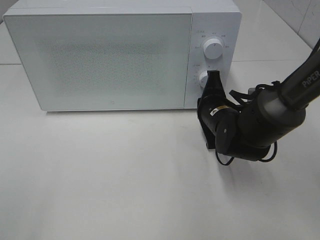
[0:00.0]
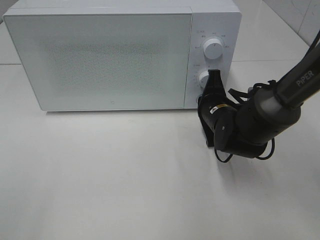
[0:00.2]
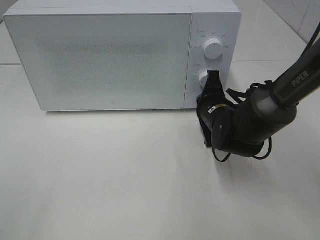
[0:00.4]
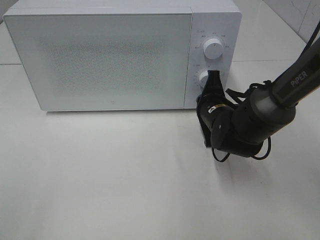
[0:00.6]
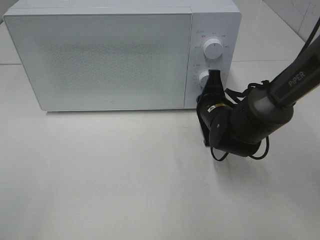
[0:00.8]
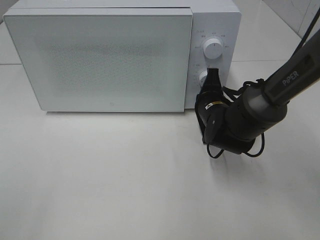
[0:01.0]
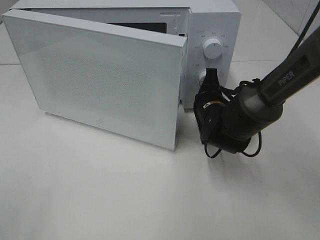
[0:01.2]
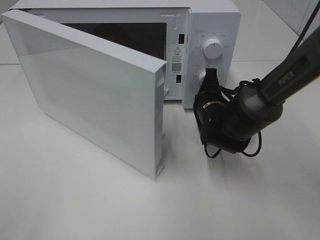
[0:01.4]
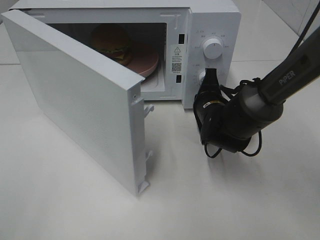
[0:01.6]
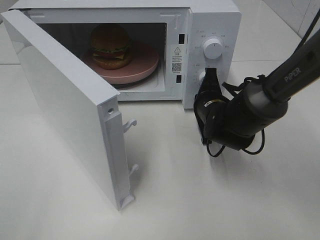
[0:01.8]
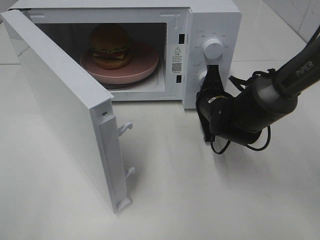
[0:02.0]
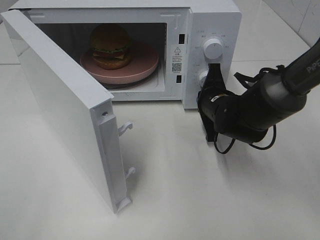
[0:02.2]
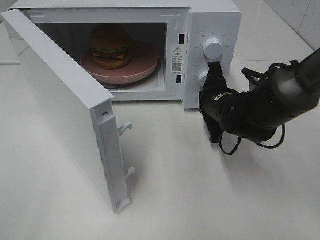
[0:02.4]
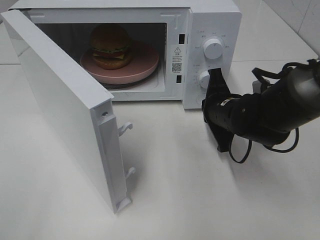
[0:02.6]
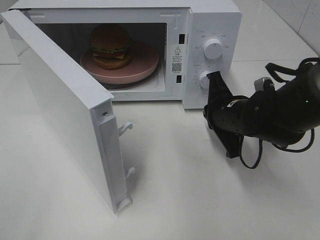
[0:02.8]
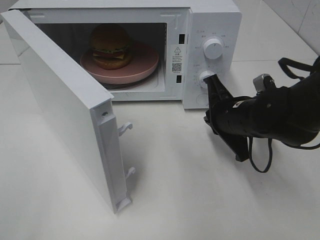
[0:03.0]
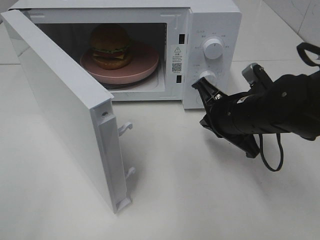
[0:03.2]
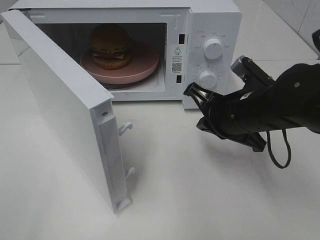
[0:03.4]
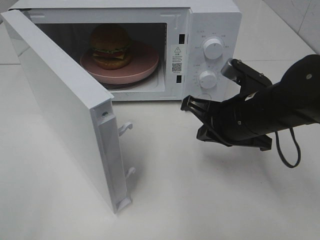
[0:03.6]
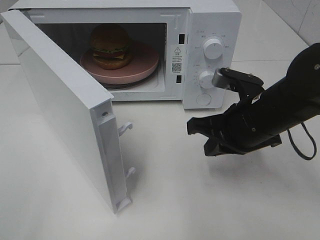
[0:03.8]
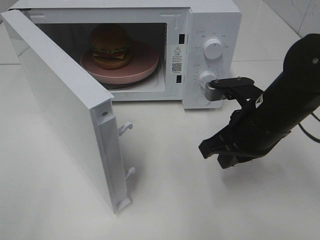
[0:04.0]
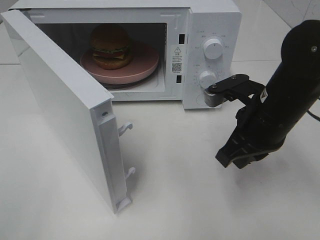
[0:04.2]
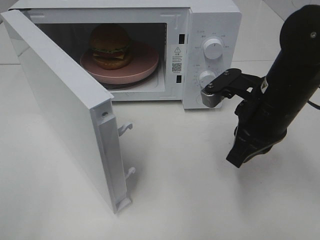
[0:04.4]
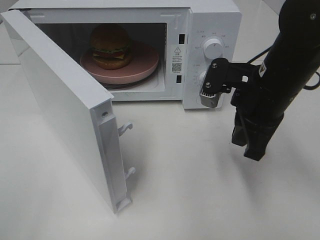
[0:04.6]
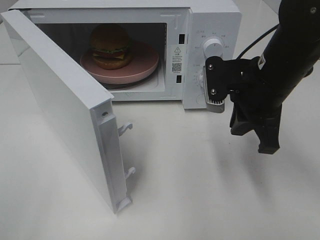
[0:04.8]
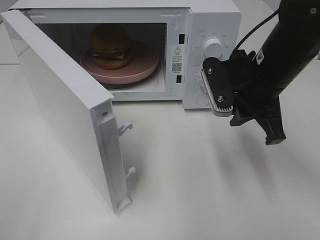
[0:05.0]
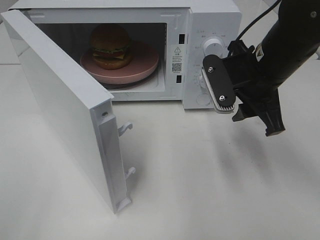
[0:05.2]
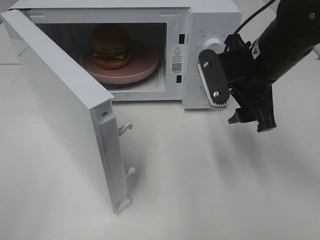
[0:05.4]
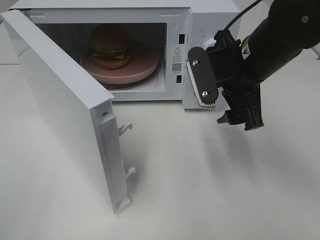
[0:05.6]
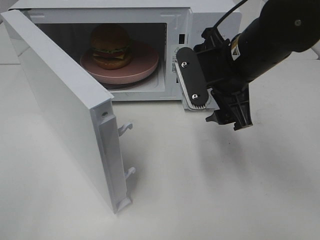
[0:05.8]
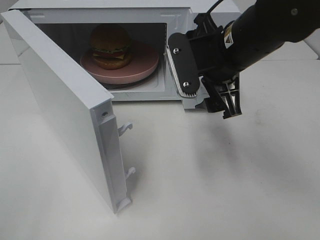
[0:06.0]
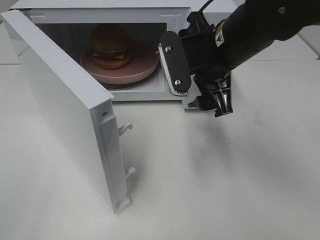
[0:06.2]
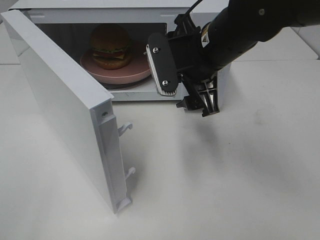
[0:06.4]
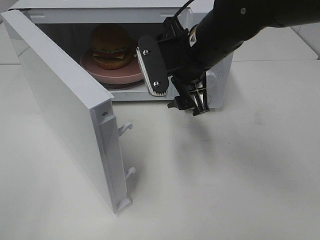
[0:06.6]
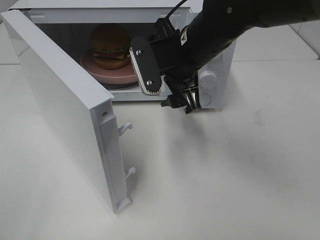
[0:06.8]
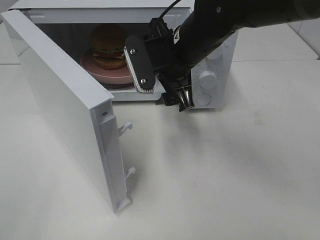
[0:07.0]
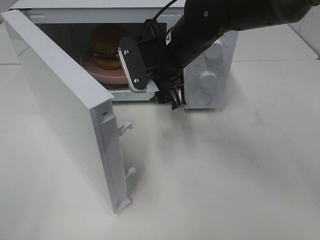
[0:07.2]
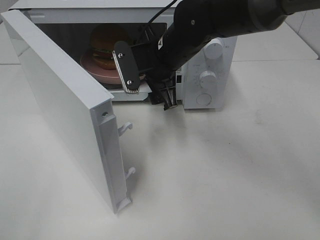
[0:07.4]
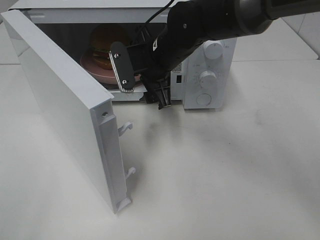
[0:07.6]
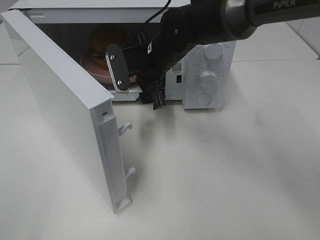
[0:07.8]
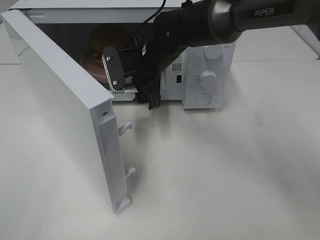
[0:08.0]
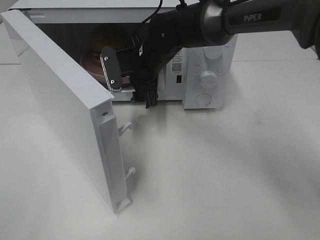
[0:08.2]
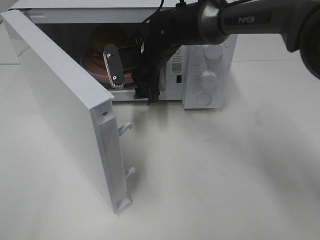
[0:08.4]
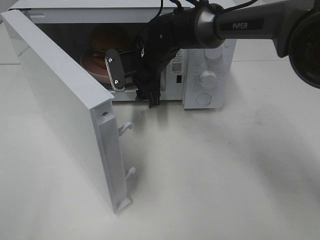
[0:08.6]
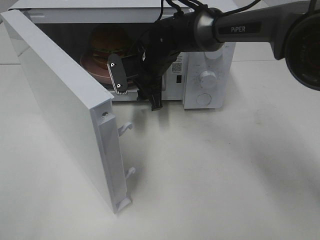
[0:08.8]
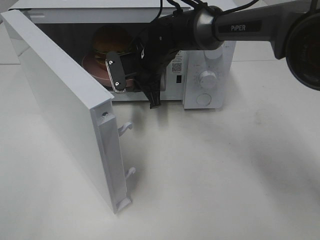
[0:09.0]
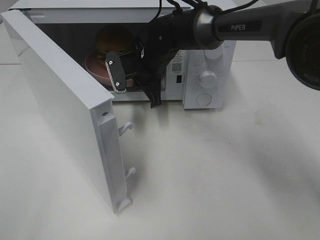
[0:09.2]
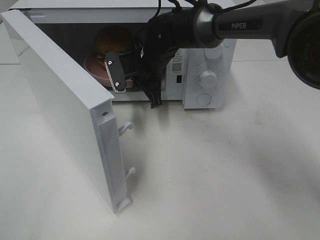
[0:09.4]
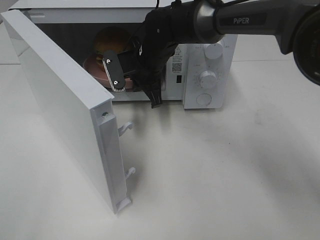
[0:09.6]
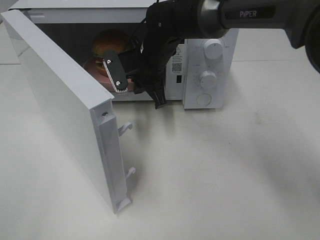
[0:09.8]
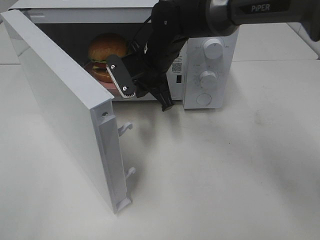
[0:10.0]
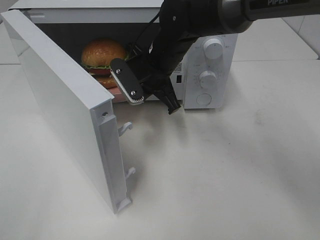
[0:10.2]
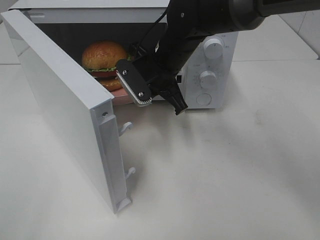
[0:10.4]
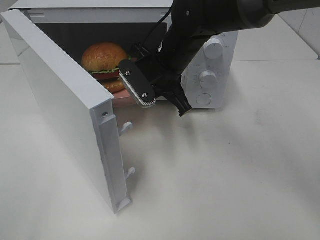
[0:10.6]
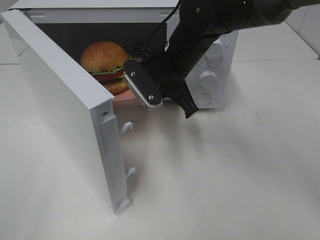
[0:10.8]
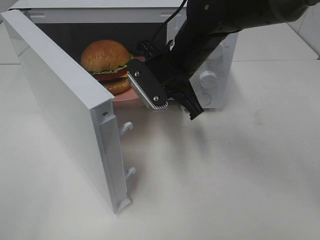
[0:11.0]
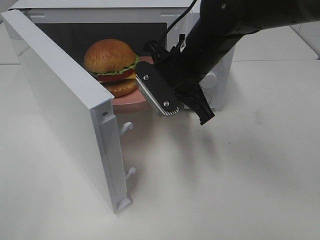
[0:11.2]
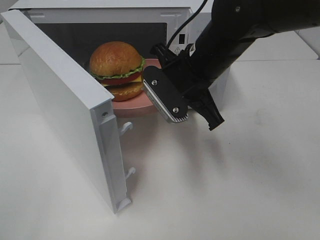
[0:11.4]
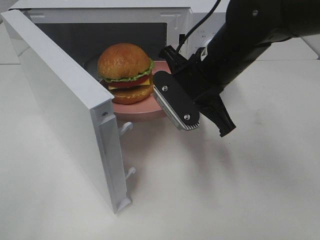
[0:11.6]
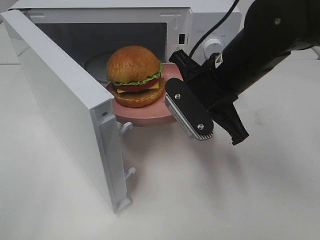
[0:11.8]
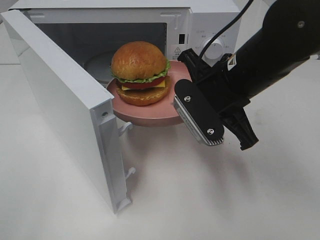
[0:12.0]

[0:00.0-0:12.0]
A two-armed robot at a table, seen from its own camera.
Task of the whole recording: Heat the burger.
Step, 0:00.0 to 0:02.4: Right hand: press the switch.
Step, 0:02.6 to 0:09.0: Right hand: grab the plate with the hamburger.
0:01.6 to 0:03.0: The right gripper goes about 5 cm backward.
0:03.0 to 0:04.4: The right gripper heads upward, covering approximately 5 cm.
0:04.4 to 0:06.0: The right gripper is displaced upward and to the left by roughly 10 cm, and opens.
0:06.0 to 0:07.6: The right gripper moves forward, to the left and downward, about 15 cm.
0:07.6 to 0:09.0: The right gripper goes roughly 5 cm forward, and closes.
0:09.0 to 0:10.4: The right gripper heads backward, covering about 5 cm.
0:10.4 to 0:12.0: The right gripper heads backward and to the right, covering some 15 cm.

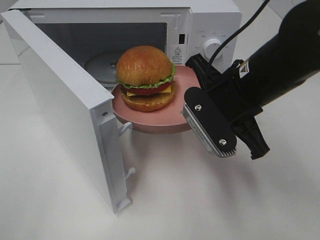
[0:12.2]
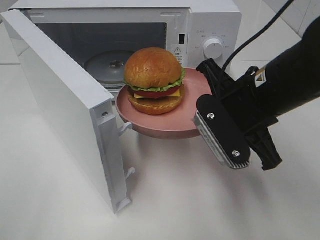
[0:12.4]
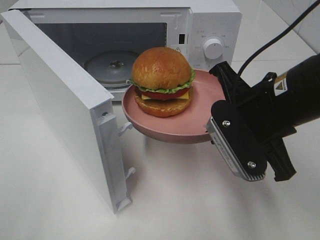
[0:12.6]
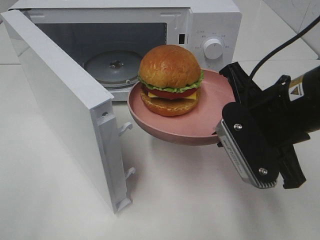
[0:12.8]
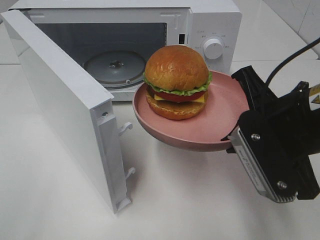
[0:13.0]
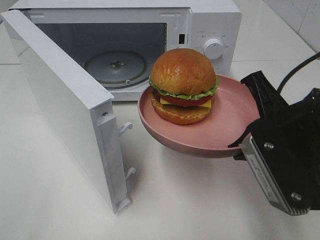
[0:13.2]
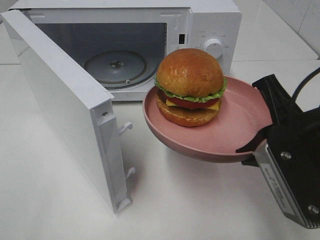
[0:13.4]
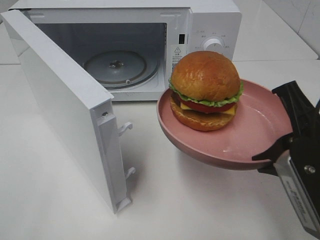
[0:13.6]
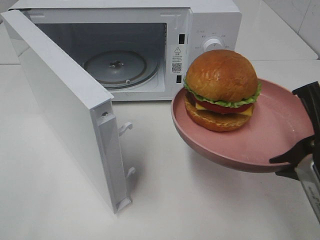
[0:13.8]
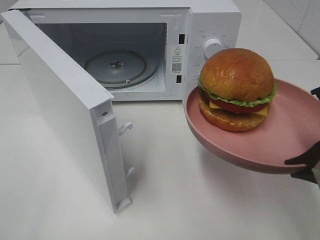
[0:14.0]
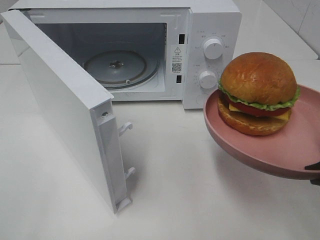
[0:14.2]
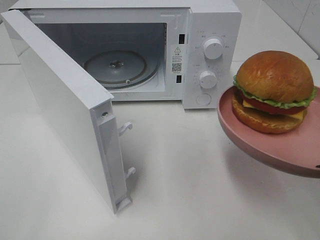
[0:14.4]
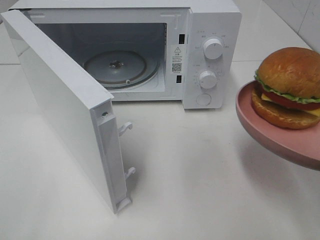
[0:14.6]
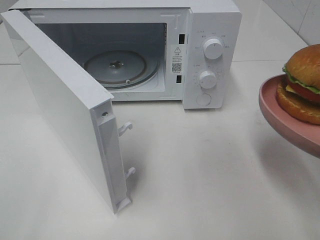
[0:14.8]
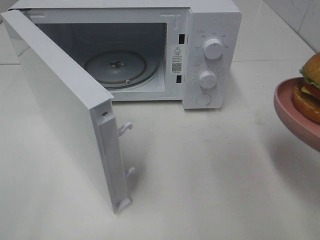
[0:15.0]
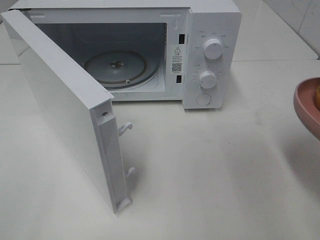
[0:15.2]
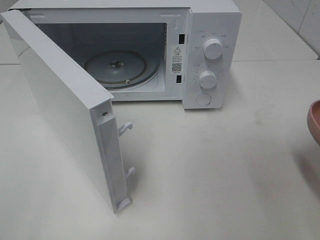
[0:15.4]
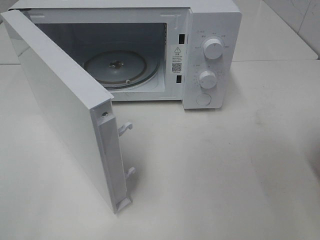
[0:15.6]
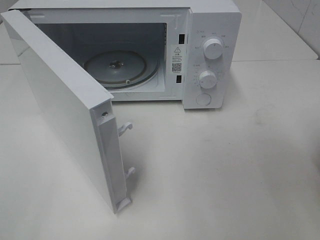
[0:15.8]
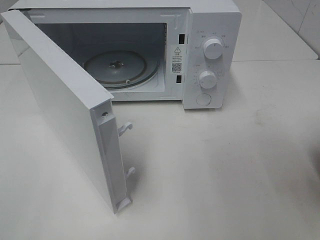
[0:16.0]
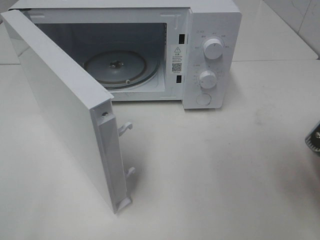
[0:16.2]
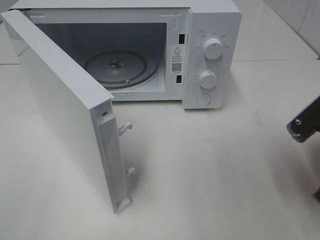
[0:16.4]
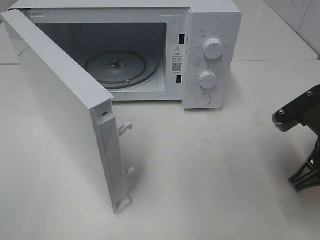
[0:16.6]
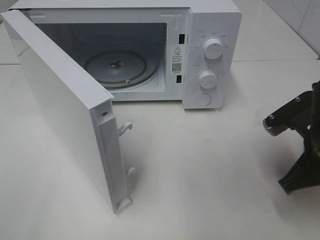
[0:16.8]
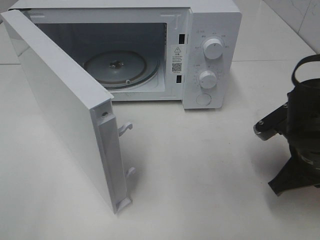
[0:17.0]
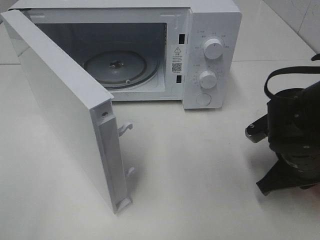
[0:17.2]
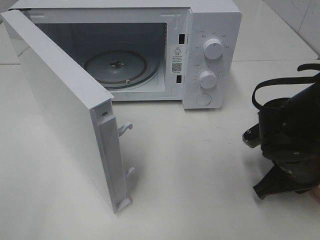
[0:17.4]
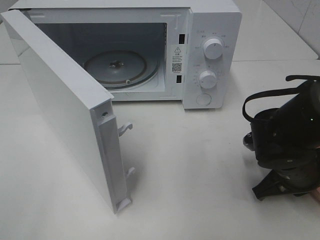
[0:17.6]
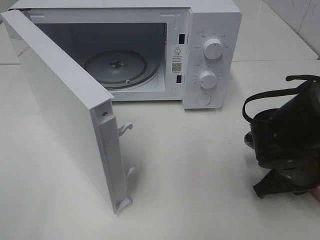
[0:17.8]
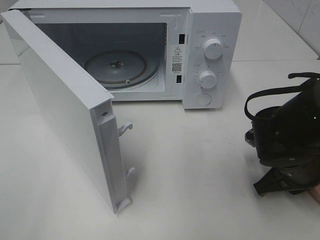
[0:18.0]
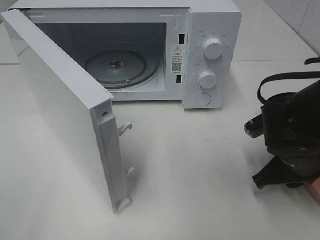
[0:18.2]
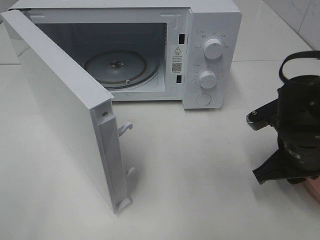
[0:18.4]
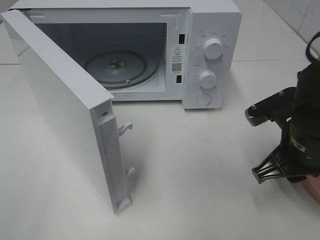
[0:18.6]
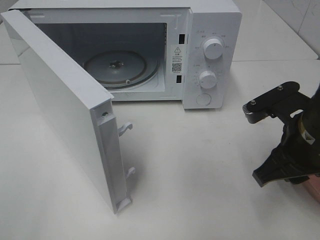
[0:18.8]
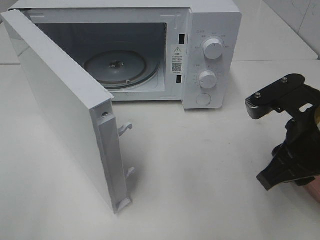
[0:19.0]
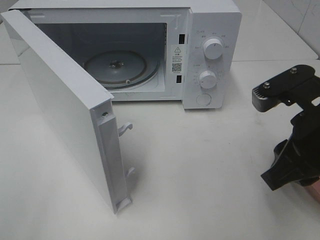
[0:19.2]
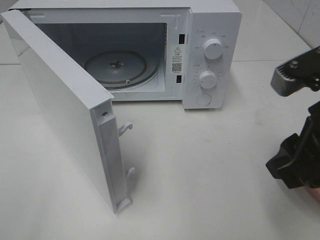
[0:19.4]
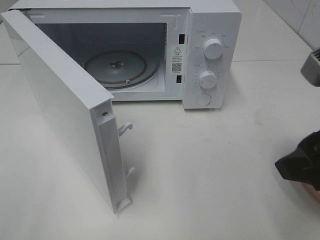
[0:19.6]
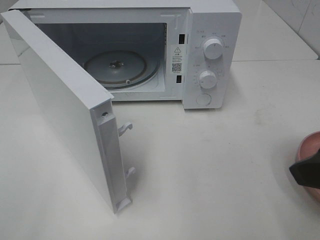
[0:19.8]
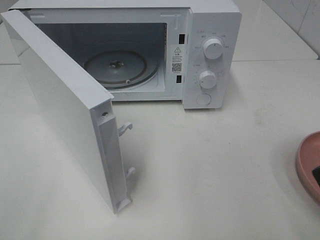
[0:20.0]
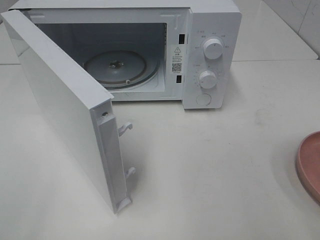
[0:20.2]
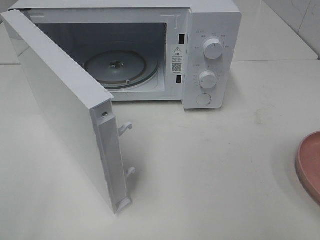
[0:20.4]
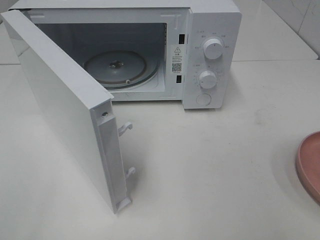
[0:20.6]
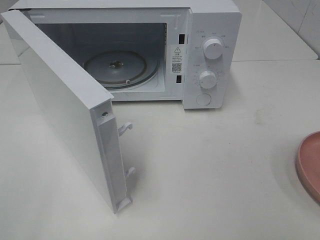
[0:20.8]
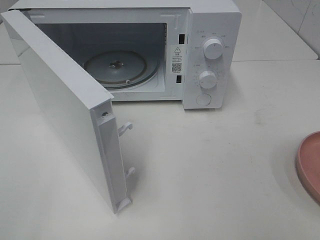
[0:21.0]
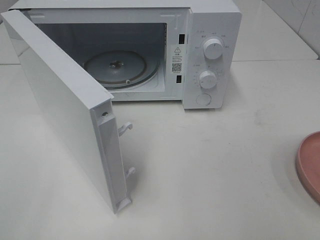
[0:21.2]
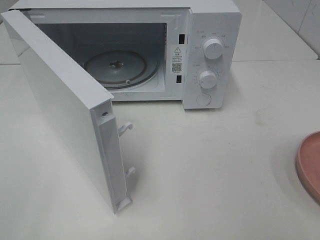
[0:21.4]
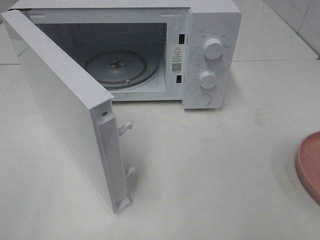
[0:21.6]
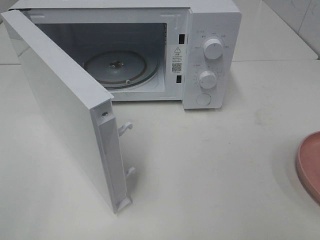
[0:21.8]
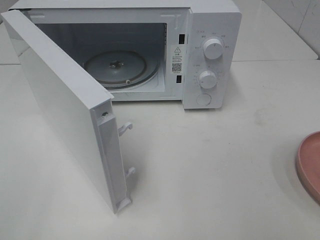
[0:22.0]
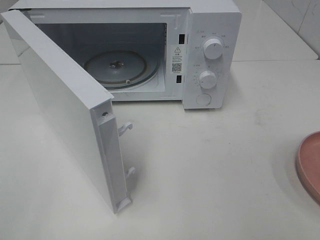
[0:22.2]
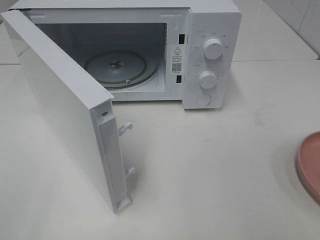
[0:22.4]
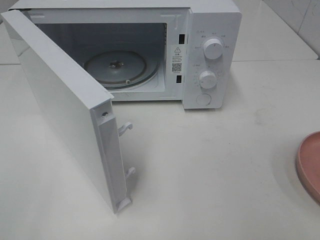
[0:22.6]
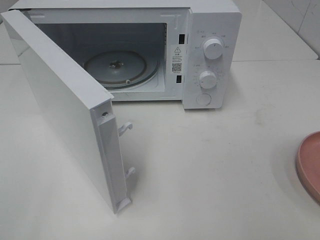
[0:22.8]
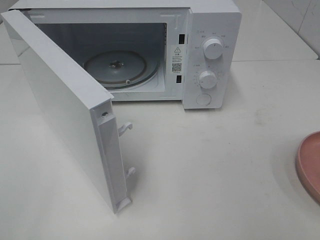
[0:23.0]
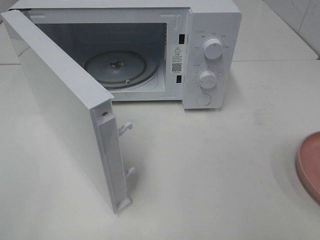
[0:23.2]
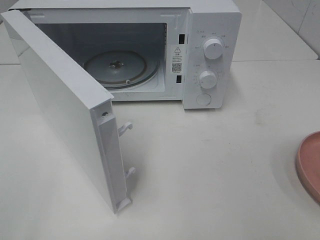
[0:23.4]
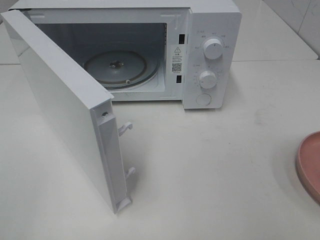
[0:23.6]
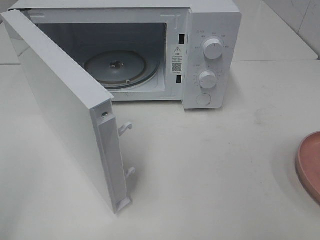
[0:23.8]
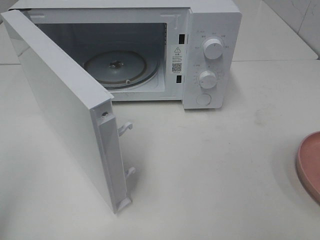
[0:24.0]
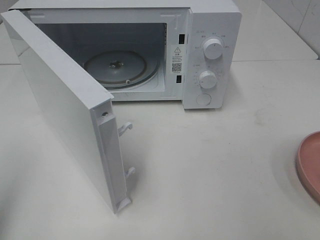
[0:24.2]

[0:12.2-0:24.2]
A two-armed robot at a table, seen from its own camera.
Task of the whole recording: Heat the burger.
Step, 0:12.2 to 0:18.2: Right hand: place the plate on the table.
0:12.2 to 0:13.8: The right gripper shifts approximately 15 cm backward and to the right.
0:13.8 to 0:15.2: The right gripper is displaced to the right by approximately 5 cm.
0:15.2 to 0:16.6: The right gripper goes some 10 cm forward and downward.
0:16.6 to 0:18.2: The right gripper goes about 5 cm downward, and opens up.
0:18.2 to 0:19.8: The right gripper is displaced upward and backward by some 20 cm, and opens up.
0:19.8 to 0:21.2: The right gripper is displaced backward and to the right by some 15 cm.
0:21.2 to 0:22.6: The two grippers keep their place.
